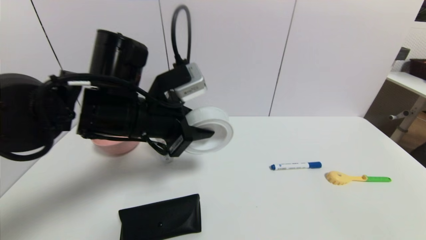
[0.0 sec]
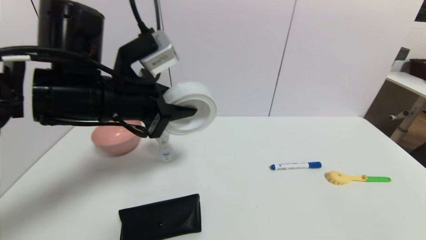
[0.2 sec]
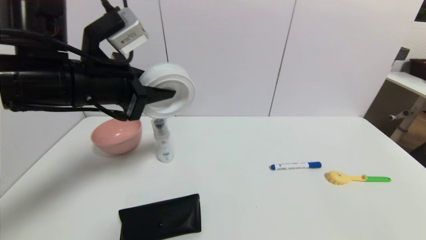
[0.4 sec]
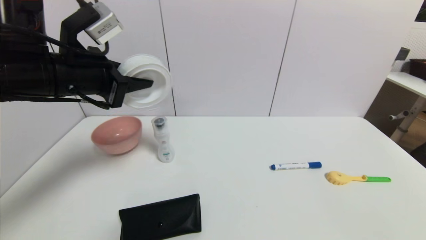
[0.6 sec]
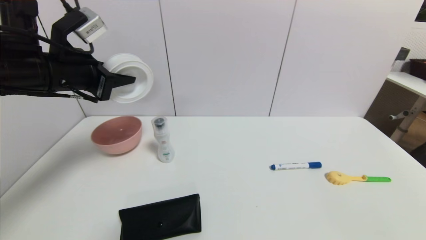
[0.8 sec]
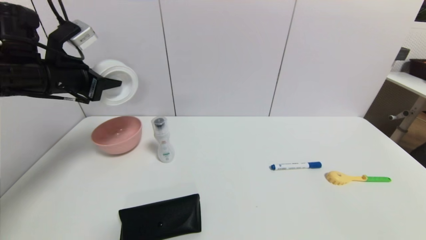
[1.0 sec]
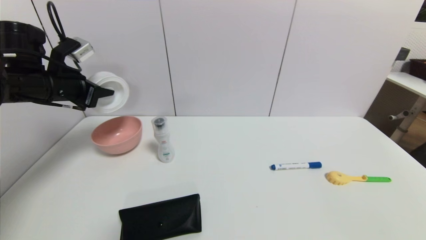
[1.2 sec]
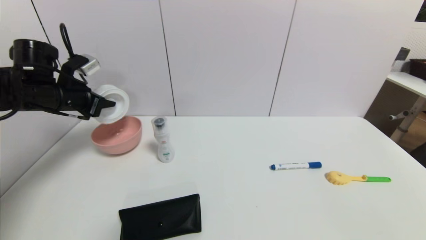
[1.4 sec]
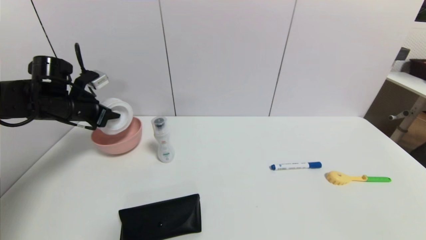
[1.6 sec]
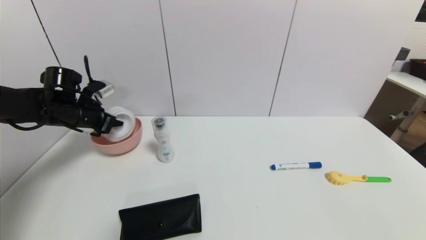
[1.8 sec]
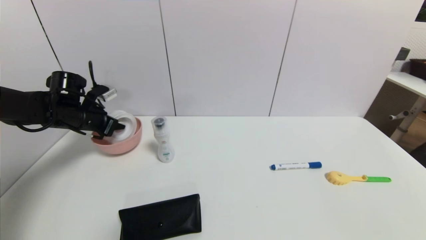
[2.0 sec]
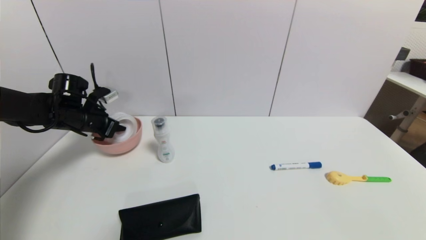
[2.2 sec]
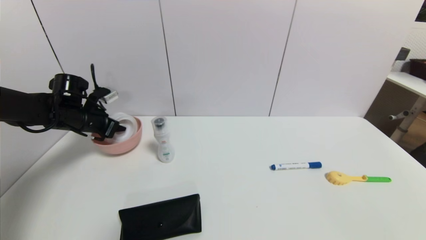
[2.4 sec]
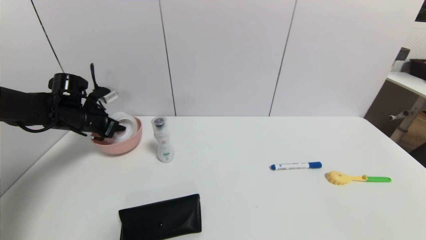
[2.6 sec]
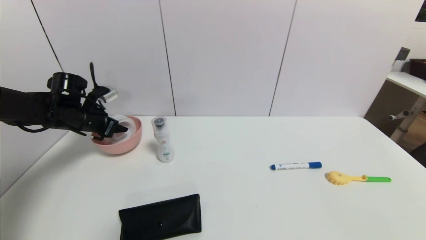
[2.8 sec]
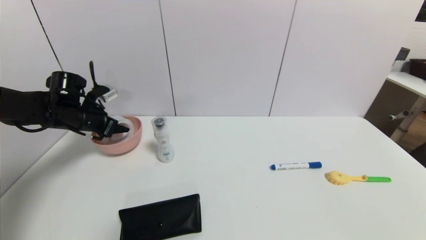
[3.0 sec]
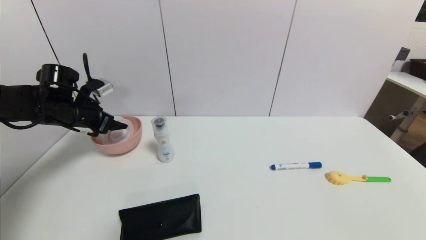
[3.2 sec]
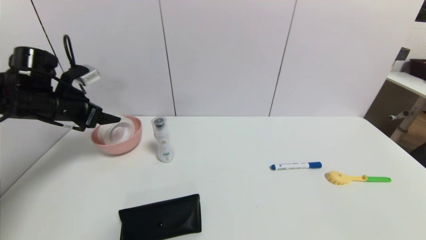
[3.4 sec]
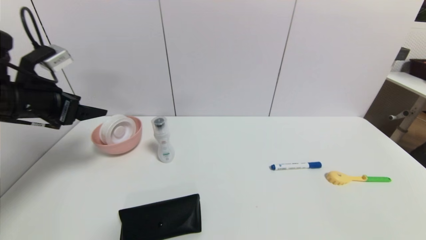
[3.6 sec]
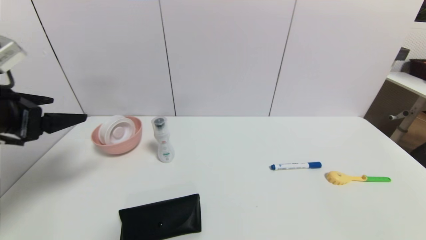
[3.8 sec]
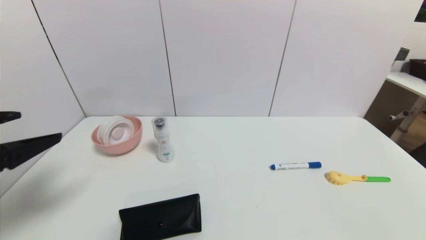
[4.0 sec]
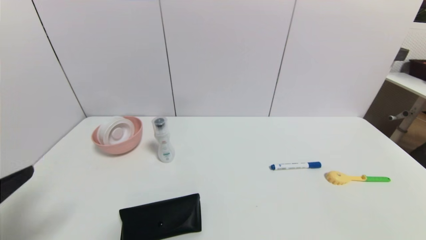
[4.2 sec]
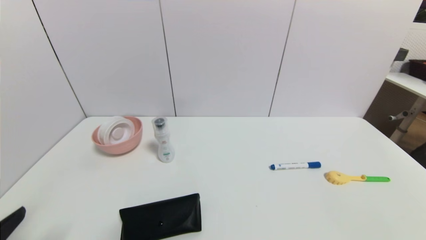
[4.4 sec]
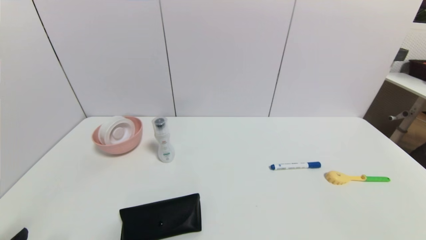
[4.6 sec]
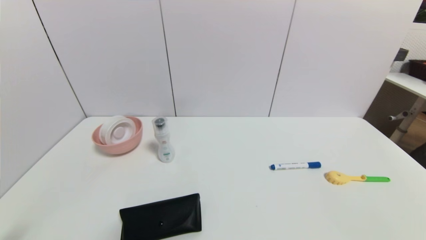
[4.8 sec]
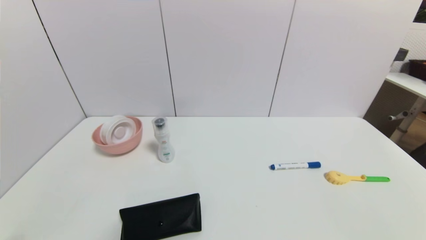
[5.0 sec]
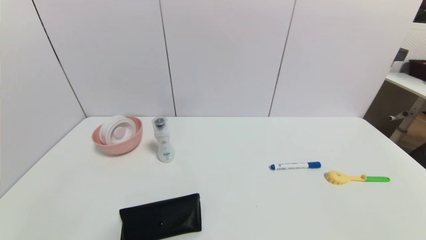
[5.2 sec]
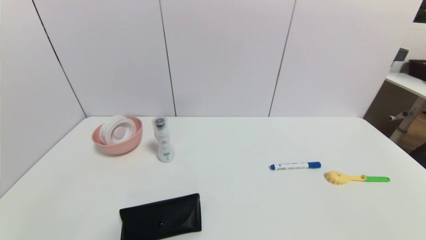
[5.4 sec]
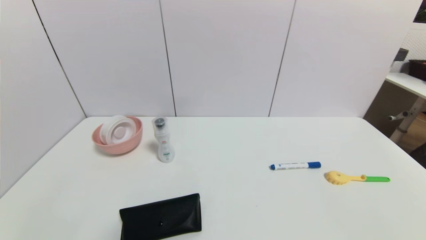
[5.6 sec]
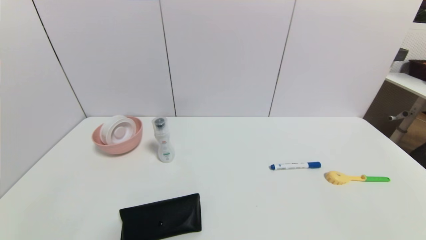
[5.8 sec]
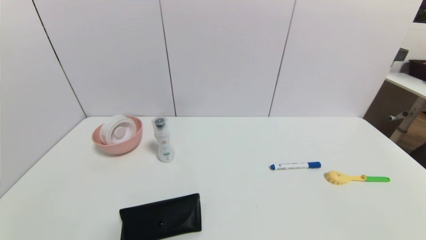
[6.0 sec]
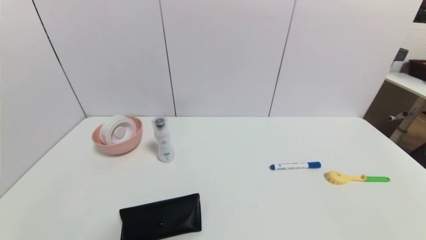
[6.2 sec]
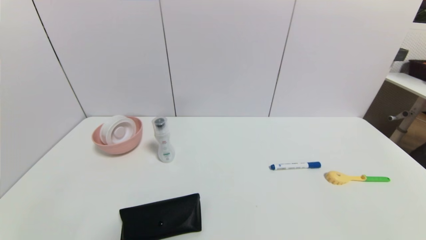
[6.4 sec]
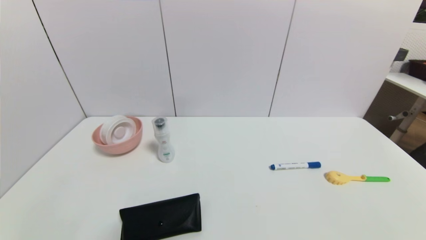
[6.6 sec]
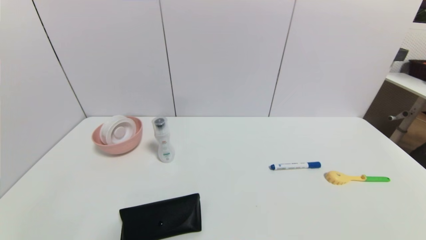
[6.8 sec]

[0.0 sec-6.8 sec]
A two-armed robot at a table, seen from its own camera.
Task of the whole recording: use a gripper to pick the target object and place on the pink bowl.
Step, 0.0 sec to 3.2 sec: Place the tape on the pink bowl with the left gripper.
0.0 sec to 1.4 sec: The left gripper shifts about 25 cm to the left and forward.
1.4 sec to 2.8 sec: The left gripper shifts about 5 cm downward, and opens up.
2.8 sec to 4.0 sec: The left gripper travels backward by about 30 cm, and opens.
4.0 sec to 5.4 sec: The left gripper moves downward and backward, approximately 25 cm.
5.4 sec to 6.8 sec: Both grippers stay put.
